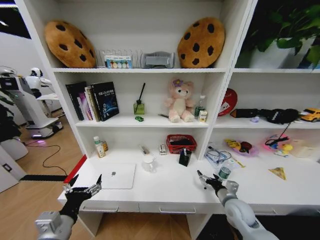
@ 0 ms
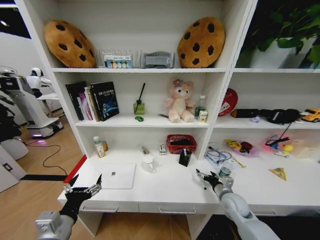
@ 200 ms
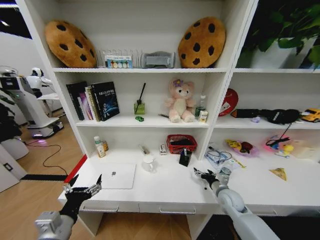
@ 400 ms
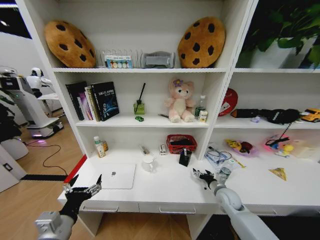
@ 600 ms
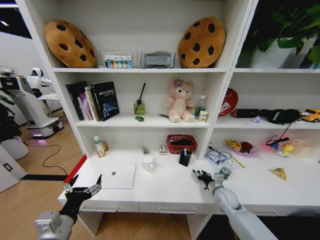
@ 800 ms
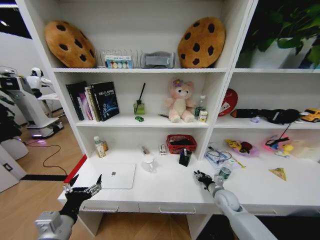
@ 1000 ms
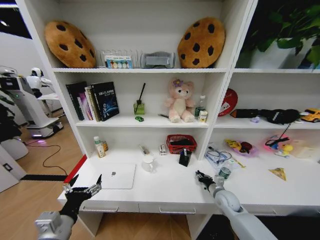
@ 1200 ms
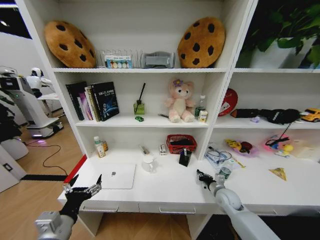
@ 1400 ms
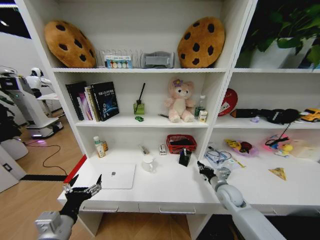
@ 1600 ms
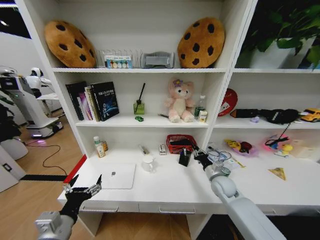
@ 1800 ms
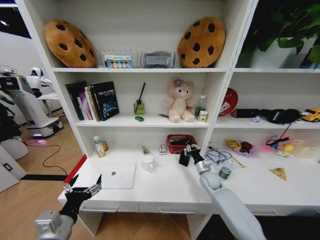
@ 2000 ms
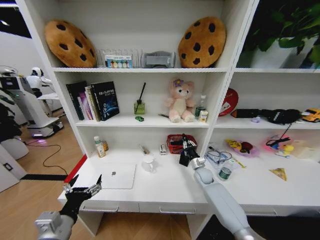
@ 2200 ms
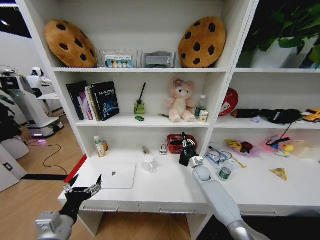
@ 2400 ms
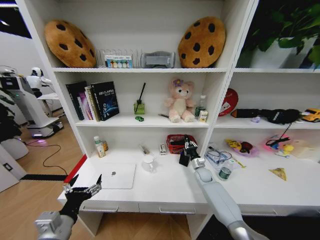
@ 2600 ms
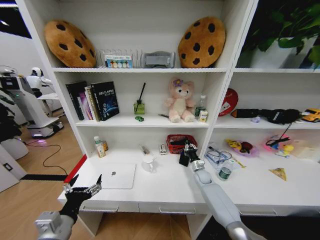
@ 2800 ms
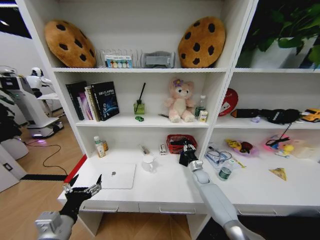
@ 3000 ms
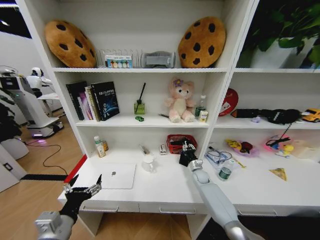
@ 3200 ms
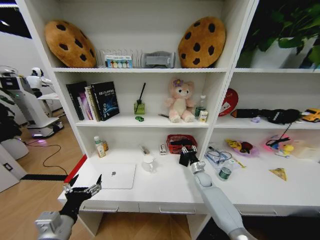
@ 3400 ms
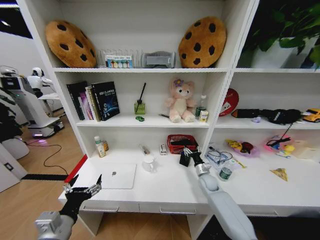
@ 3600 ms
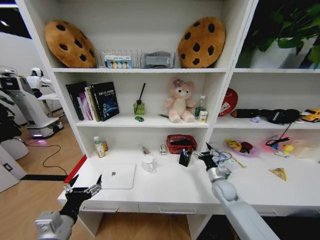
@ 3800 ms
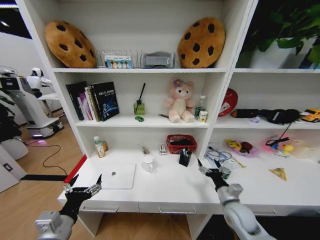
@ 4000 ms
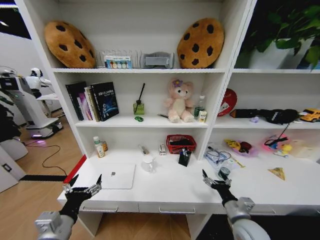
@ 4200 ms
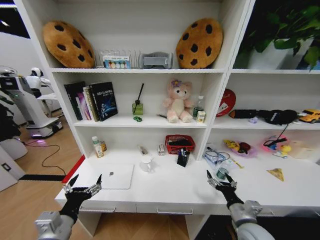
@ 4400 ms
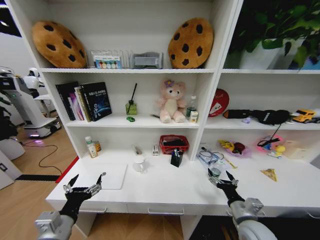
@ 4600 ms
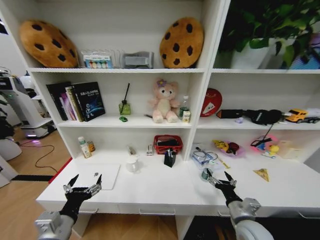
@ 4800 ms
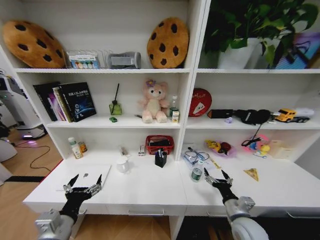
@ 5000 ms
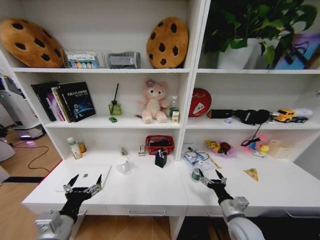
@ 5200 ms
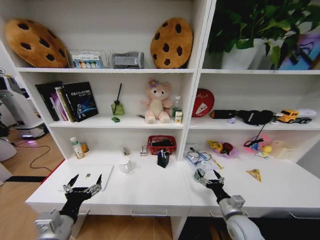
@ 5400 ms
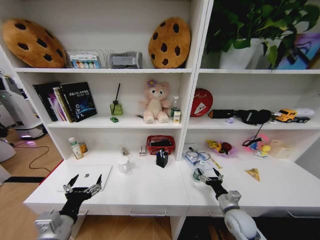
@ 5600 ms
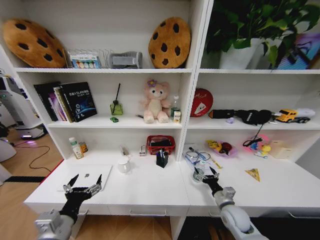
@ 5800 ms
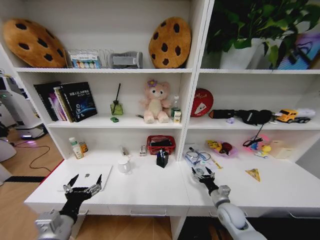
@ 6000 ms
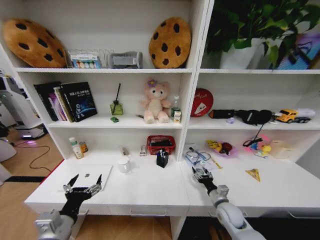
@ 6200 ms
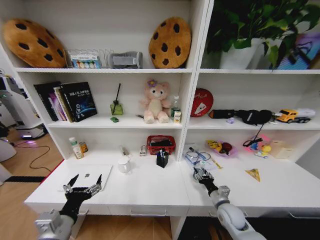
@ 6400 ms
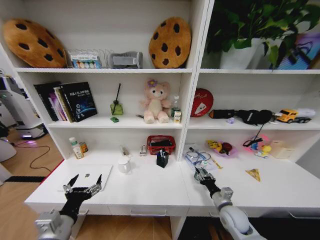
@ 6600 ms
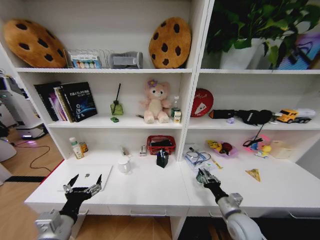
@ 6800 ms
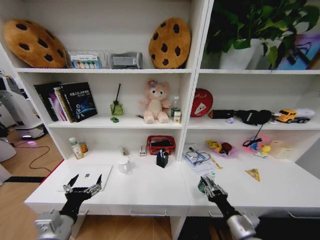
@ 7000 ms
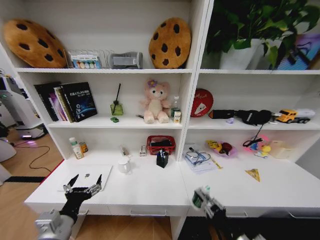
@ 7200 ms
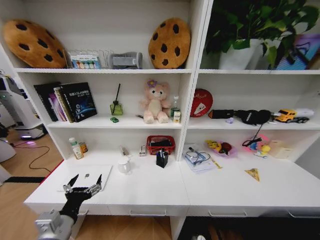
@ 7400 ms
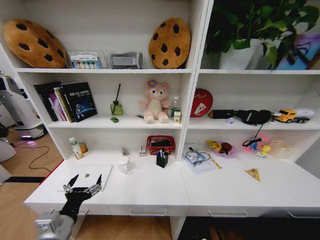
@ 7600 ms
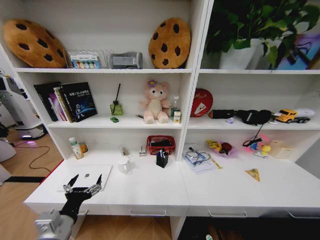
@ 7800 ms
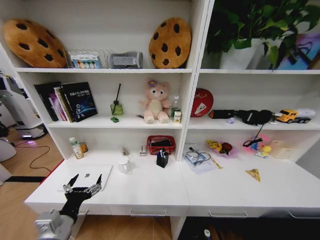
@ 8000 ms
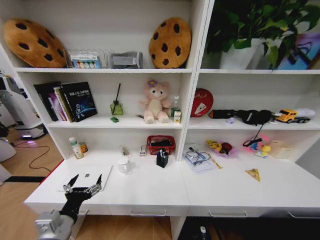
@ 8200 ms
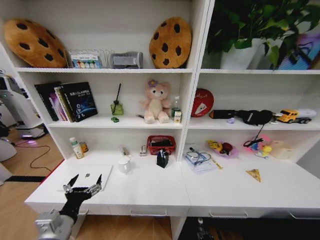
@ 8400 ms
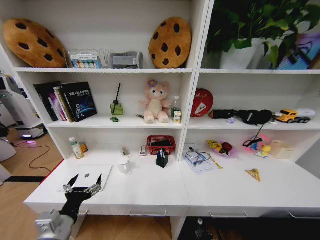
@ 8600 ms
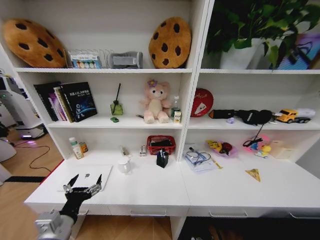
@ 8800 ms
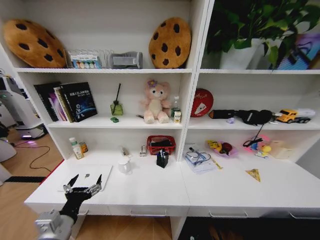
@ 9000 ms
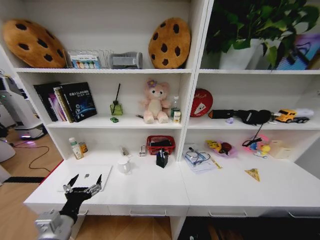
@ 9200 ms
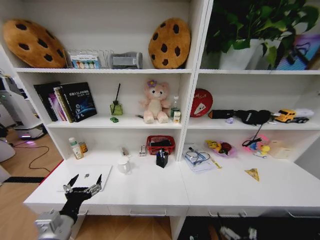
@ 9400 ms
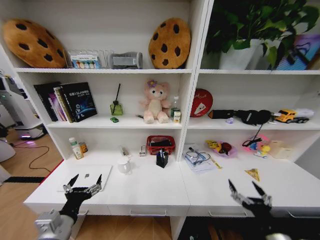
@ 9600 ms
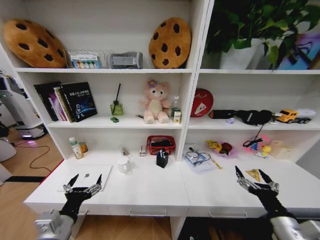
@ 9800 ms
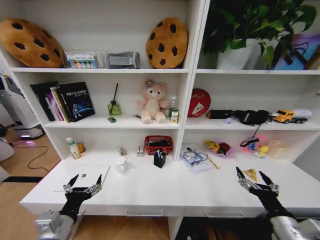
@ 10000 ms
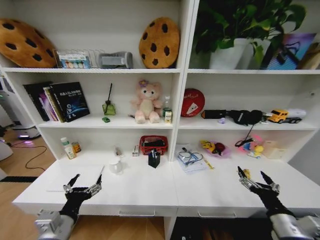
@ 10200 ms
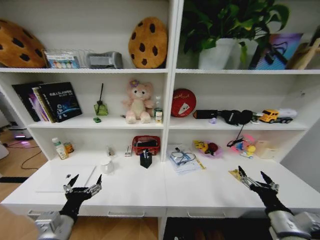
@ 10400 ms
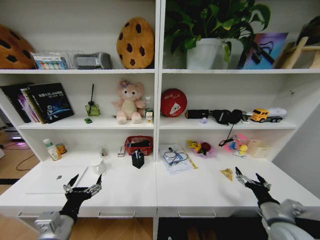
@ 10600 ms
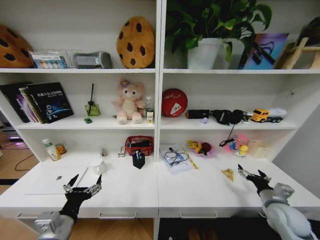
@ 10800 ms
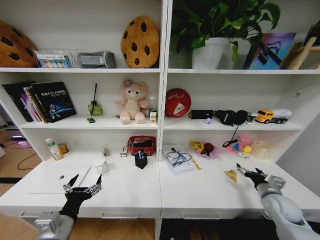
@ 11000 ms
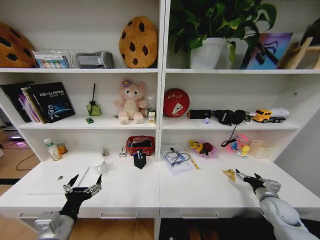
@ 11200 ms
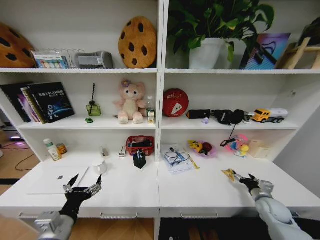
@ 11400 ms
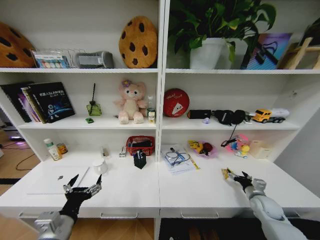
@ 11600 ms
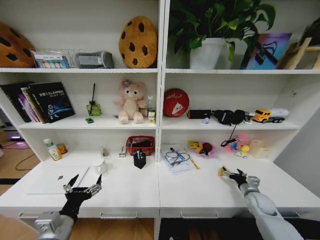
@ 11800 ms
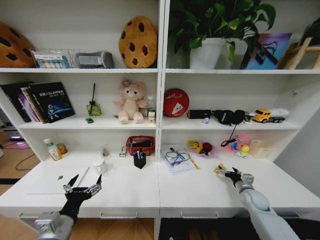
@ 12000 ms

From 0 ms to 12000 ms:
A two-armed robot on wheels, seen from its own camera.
Task of the whole recording: Organize the objects on the table.
From 0 ms to 1600 ms: The right gripper shifts some 5 cm forward, and closes.
From 1600 ms to 3000 ms: The right gripper goes approximately 15 cm forward and downward.
From 3000 ms to 4400 ms: The right gripper heads backward, covering roughly 30 cm, and opens.
From 4400 ms to 6000 ms: The right gripper shifts some 10 cm forward and downward.
From 6000 ms to 7600 ms: The right gripper goes about 30 cm backward, and closes its fingers.
From 7600 ms to 9000 ms: The right gripper travels downward and forward by about 20 cm, and opens.
From 9000 ms to 10400 ms: The right gripper travels upward by about 40 cm.
From 10400 ms to 12000 ms: The right gripper travels forward, downward and to the right by about 25 cm.

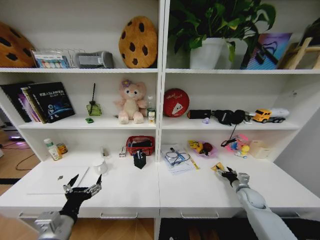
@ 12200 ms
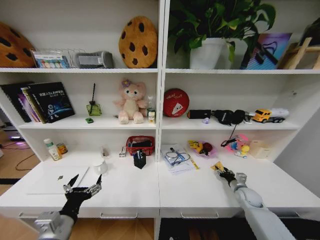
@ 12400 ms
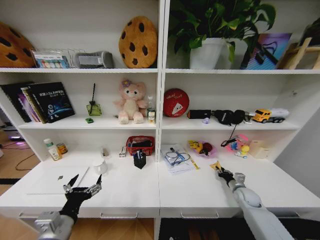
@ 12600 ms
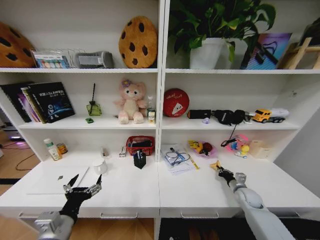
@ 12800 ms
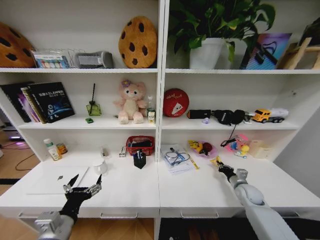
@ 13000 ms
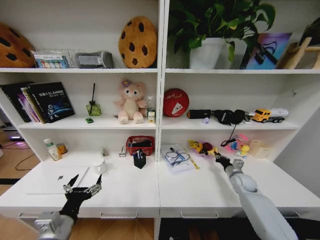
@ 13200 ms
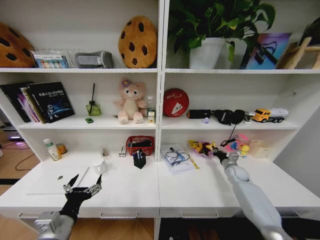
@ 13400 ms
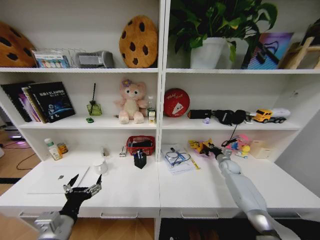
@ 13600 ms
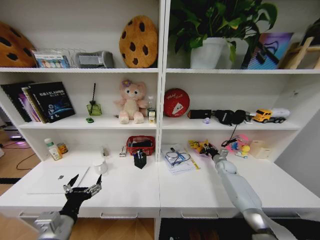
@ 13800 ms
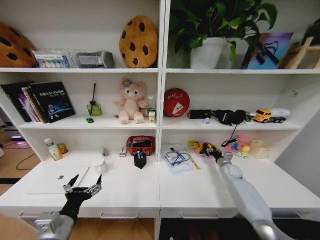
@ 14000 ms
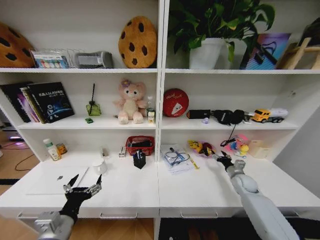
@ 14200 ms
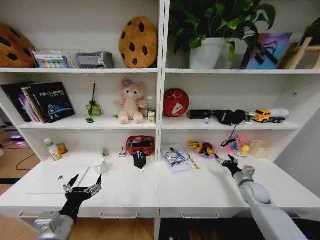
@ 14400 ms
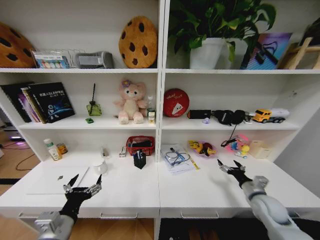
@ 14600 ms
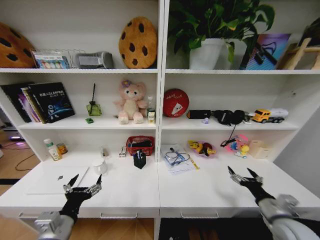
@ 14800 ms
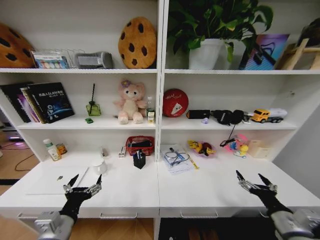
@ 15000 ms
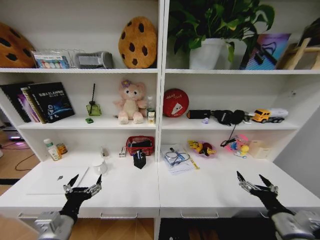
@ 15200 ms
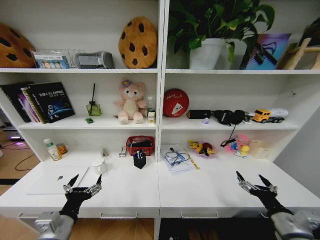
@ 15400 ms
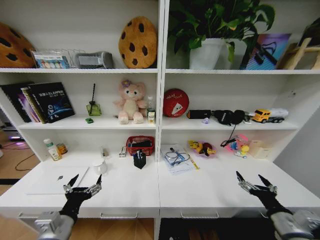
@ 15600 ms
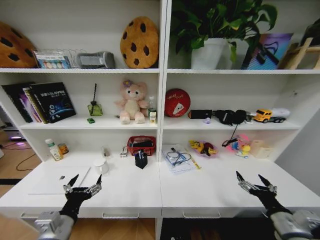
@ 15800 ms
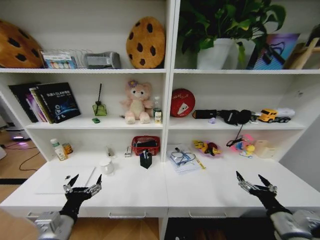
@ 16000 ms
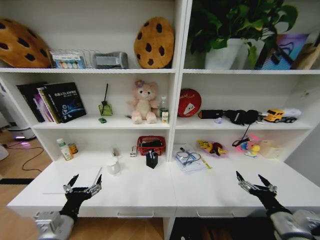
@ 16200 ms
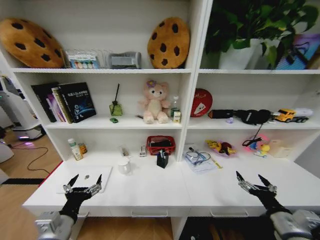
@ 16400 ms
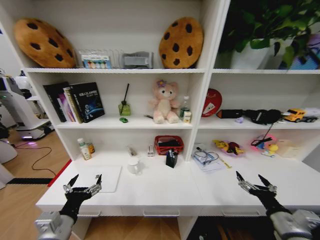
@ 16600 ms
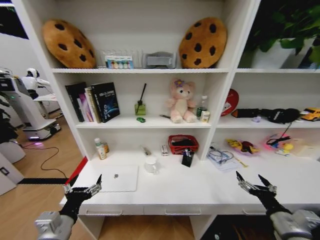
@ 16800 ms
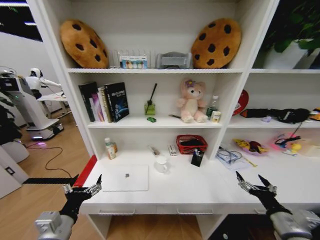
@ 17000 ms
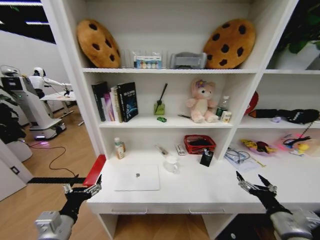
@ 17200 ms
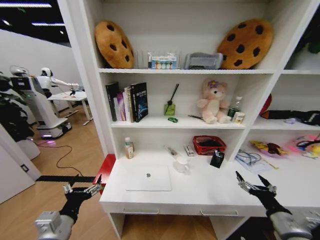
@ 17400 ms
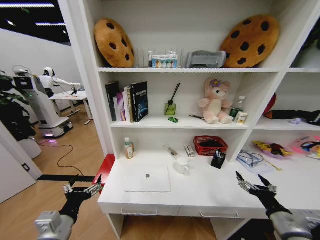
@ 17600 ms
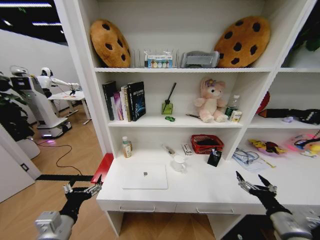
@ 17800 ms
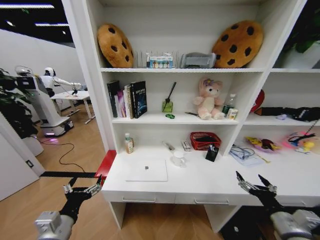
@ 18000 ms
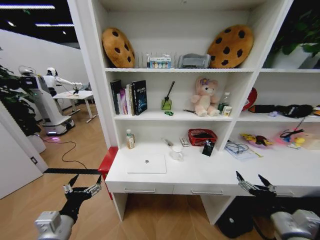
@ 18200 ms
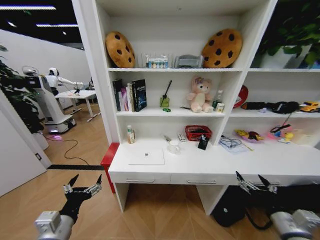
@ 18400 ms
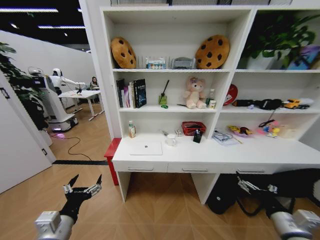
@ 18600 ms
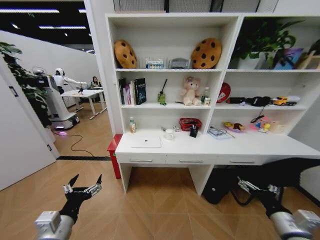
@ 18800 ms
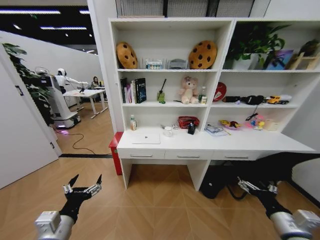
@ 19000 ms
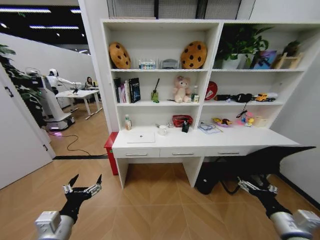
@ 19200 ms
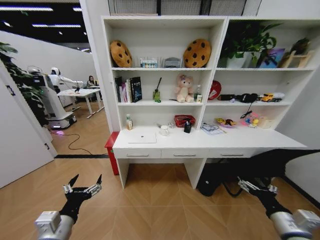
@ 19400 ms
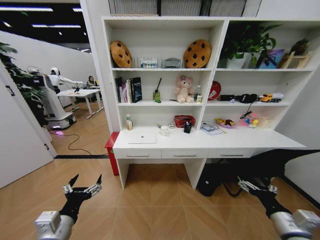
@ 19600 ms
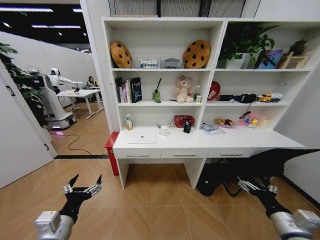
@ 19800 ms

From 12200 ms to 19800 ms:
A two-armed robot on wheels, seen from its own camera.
Task of the whole recording: Organize the objects on the table.
From 12200 ms to 13800 ms: The right gripper travels forward by about 15 cm, and closes its fingers.
From 13800 ms to 15200 ms: The right gripper moves backward, roughly 35 cm, and opens.
